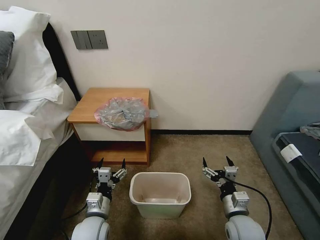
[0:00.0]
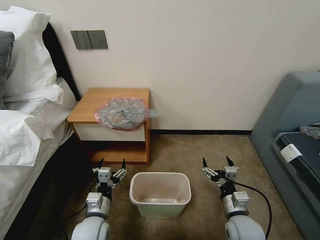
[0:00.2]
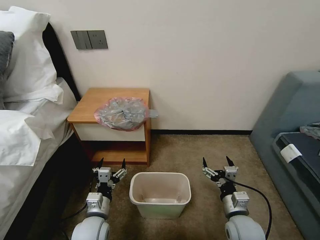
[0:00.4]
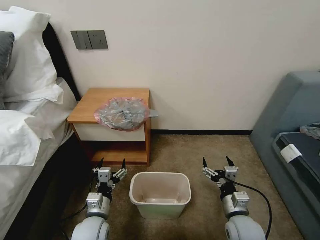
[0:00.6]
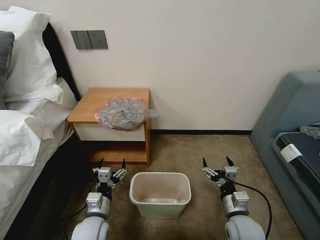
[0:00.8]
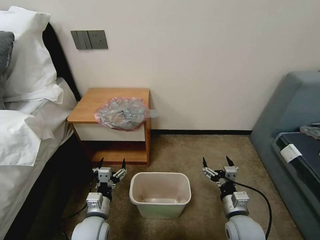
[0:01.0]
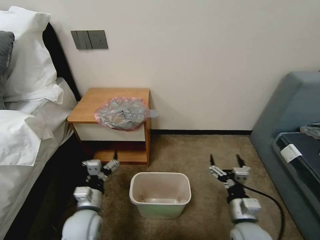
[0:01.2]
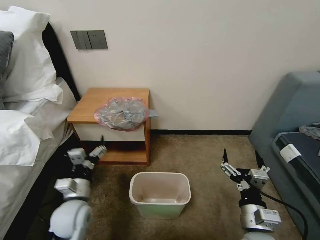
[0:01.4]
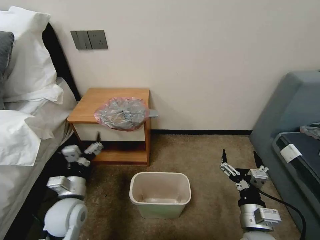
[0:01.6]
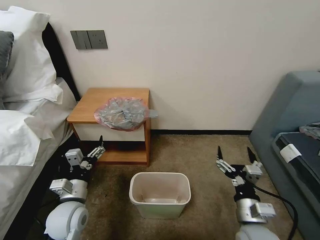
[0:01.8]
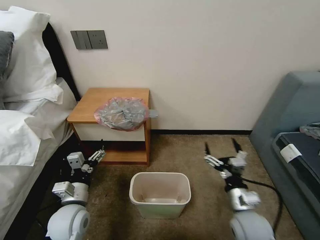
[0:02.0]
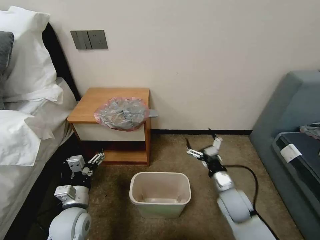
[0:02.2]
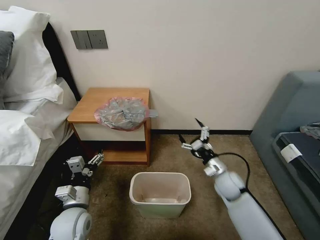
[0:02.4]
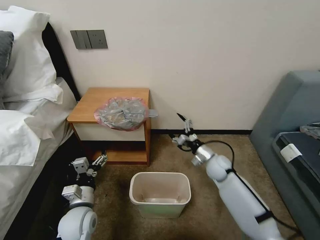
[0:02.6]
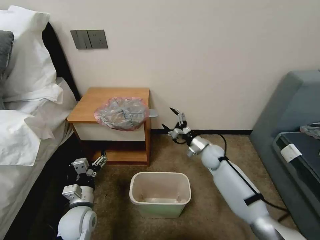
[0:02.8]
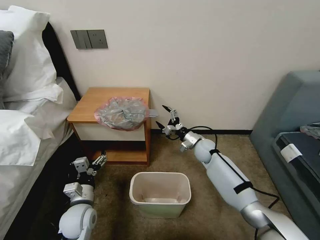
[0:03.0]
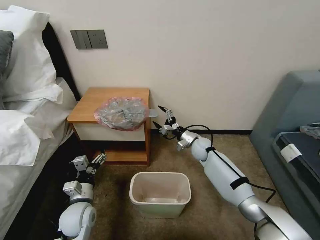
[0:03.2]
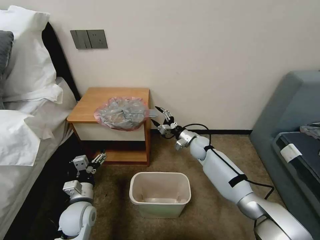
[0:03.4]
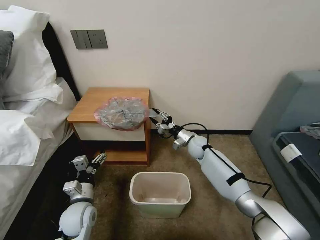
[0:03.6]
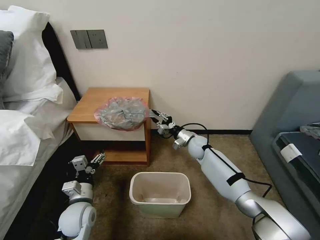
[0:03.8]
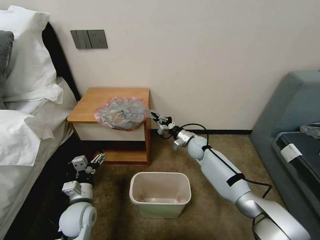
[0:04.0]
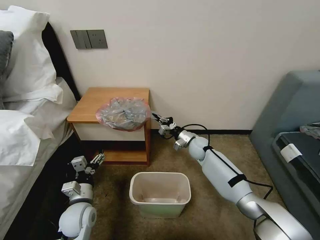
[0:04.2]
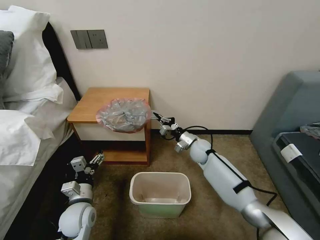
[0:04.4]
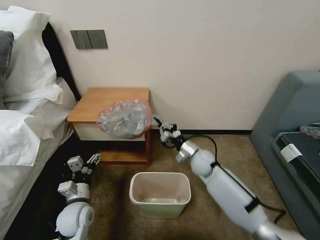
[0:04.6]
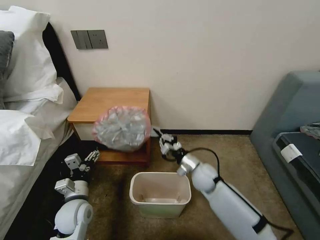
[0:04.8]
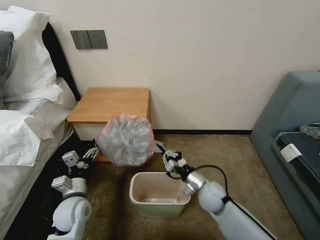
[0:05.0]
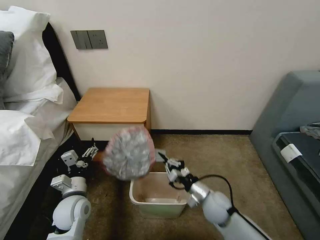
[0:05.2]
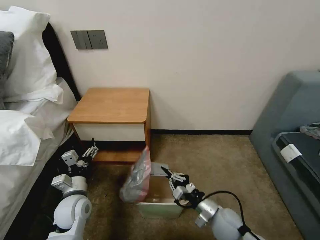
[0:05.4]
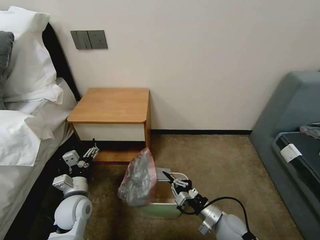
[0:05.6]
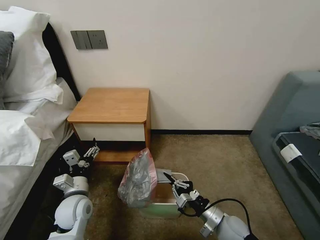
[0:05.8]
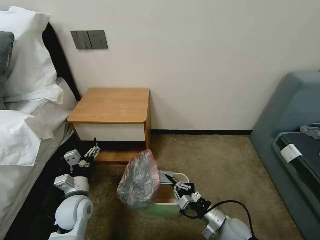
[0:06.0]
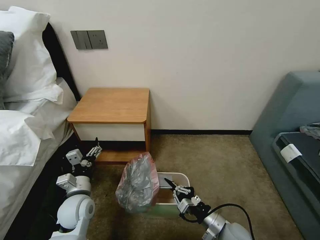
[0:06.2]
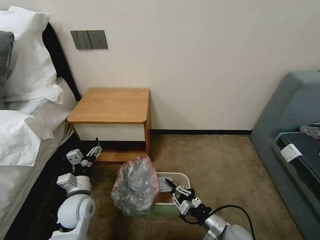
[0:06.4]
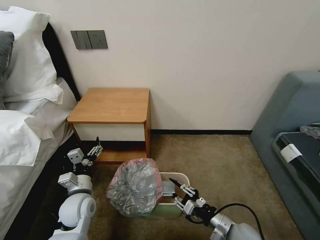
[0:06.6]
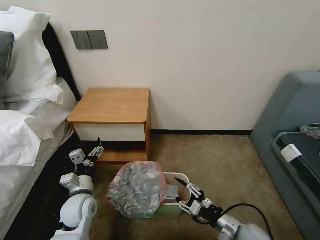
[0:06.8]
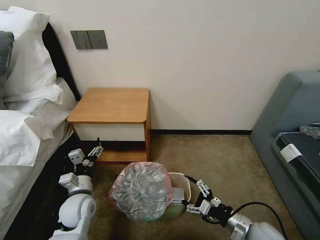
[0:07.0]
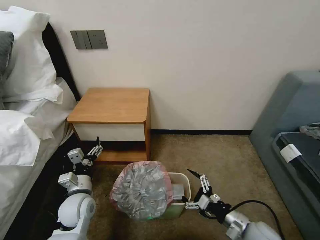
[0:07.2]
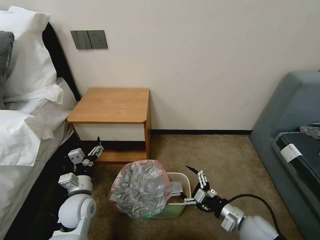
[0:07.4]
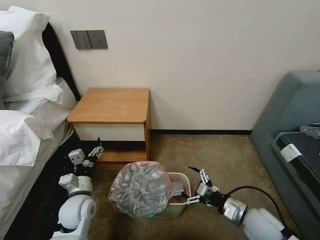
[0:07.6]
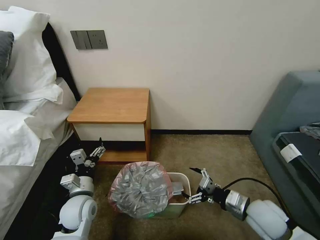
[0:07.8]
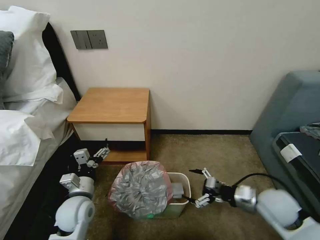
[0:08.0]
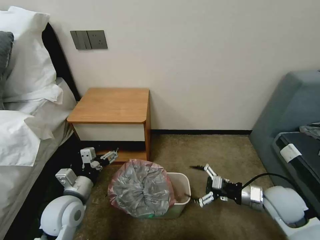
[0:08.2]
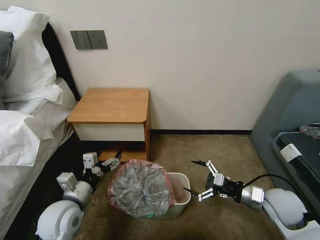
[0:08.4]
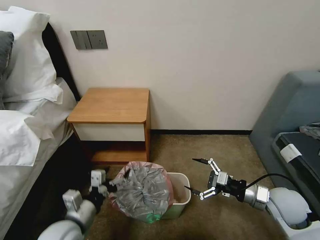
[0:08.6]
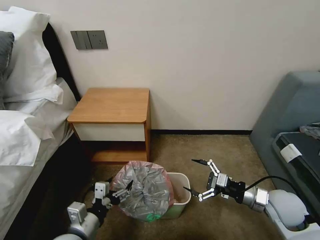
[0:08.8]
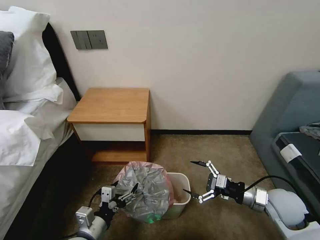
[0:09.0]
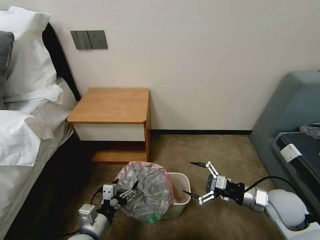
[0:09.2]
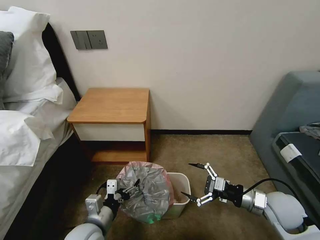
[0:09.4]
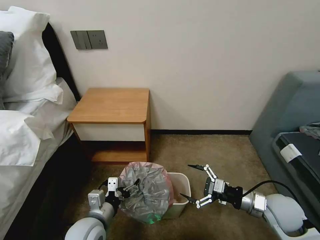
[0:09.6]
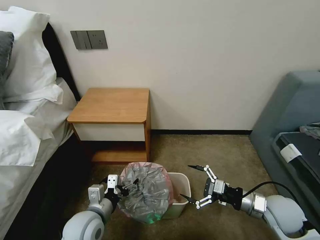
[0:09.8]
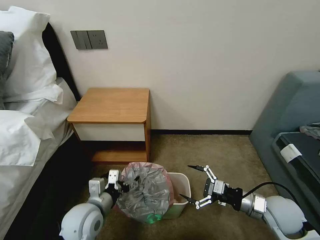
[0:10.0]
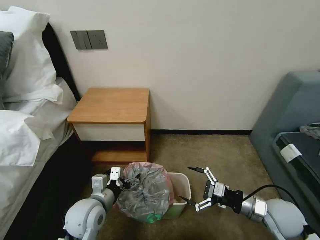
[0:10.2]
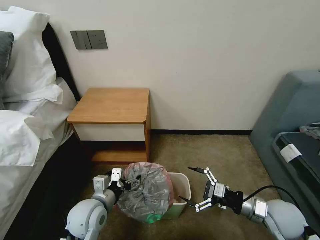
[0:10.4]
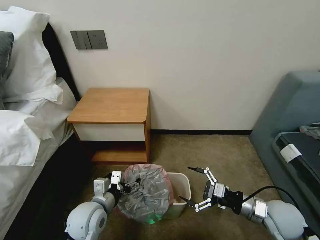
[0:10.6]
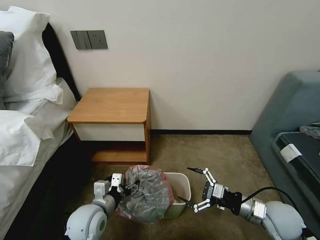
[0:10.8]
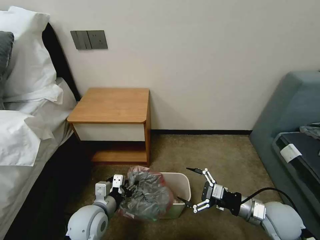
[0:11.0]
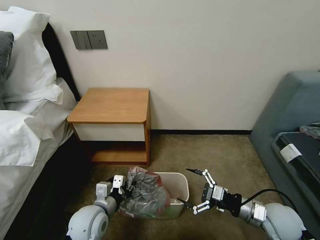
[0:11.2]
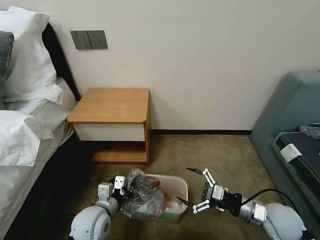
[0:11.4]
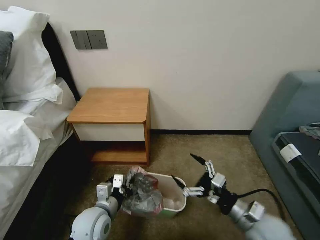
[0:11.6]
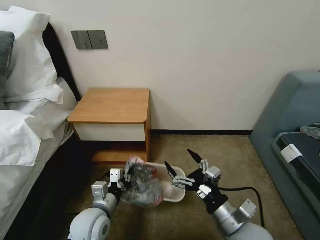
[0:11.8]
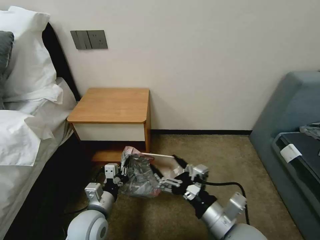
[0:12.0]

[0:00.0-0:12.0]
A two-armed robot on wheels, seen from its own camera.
Task of the whole recording: Pick up the garbage bag from the table and place it over the trash can.
0:01.6 to 0:03.0: The left gripper shifts some 5 cm downward; the right gripper goes about 35 cm forward.
0:03.0 to 0:04.4: The right gripper closes its fingers.
0:04.4 to 0:06.0: The right gripper shifts approximately 30 cm backward.
0:06.0 to 0:07.6: The right gripper travels upward and to the right by roughly 10 cm, and opens.
0:07.6 to 0:09.0: The left gripper is displaced backward by roughly 10 cm. Meanwhile the right gripper goes some 5 cm to the right.
0:09.0 to 0:10.4: The left gripper is displaced forward by approximately 10 cm.
0:10.4 to 0:12.0: The left gripper closes. Meanwhile the right gripper moves to the left, backward and upward, roughly 20 cm.

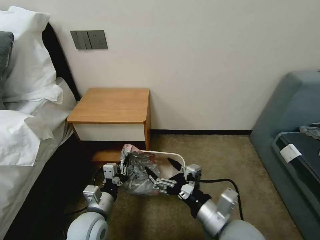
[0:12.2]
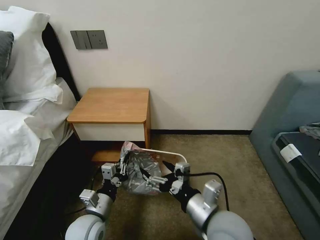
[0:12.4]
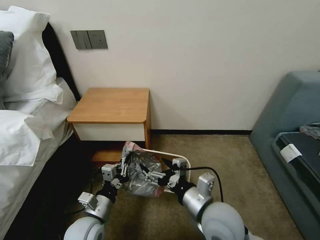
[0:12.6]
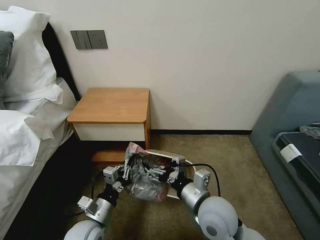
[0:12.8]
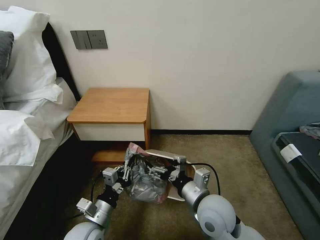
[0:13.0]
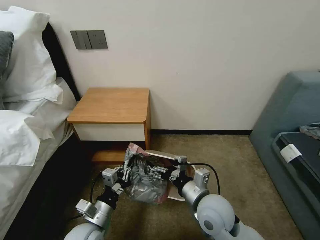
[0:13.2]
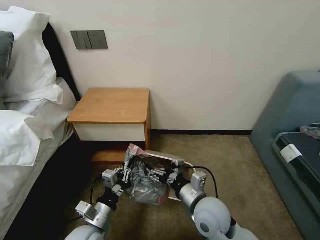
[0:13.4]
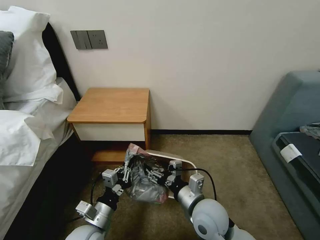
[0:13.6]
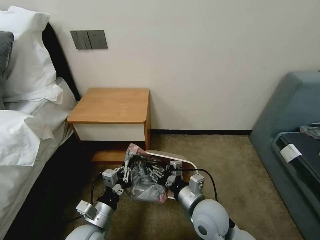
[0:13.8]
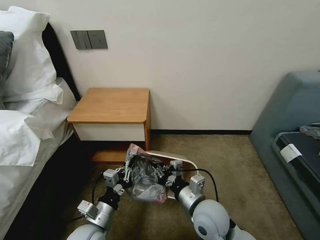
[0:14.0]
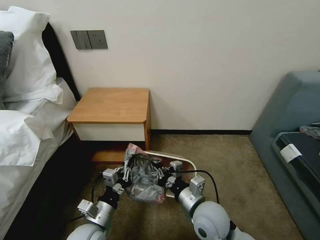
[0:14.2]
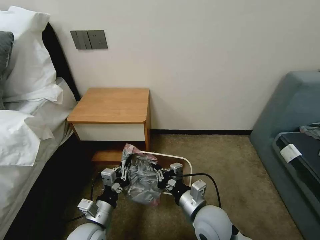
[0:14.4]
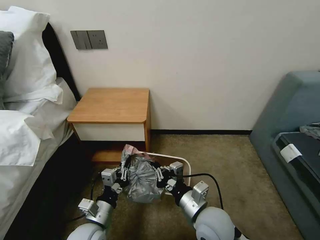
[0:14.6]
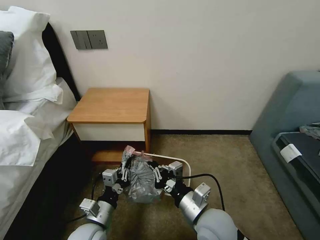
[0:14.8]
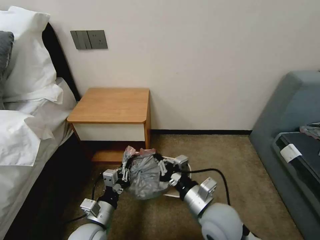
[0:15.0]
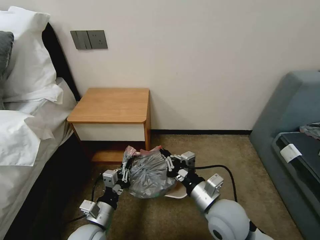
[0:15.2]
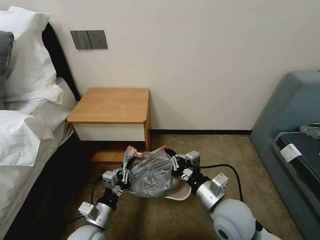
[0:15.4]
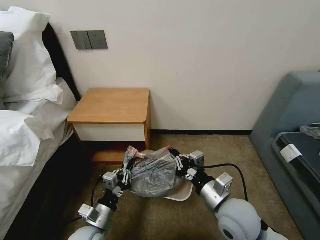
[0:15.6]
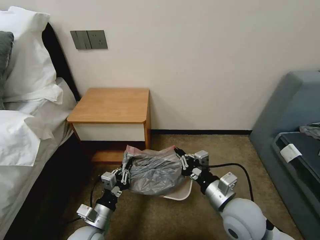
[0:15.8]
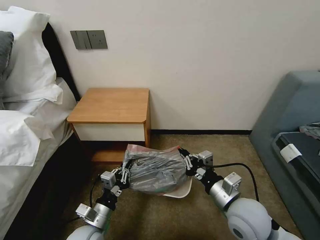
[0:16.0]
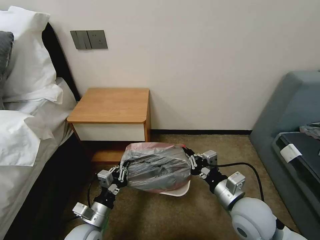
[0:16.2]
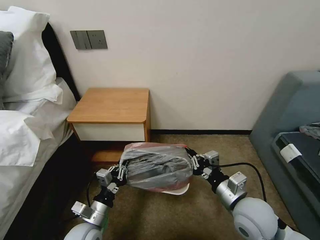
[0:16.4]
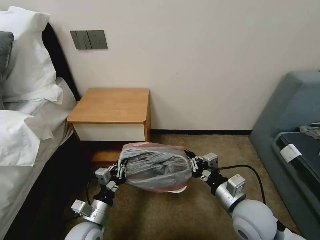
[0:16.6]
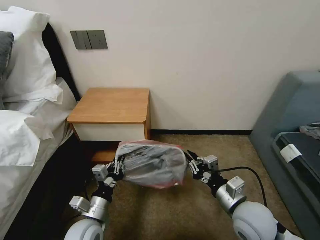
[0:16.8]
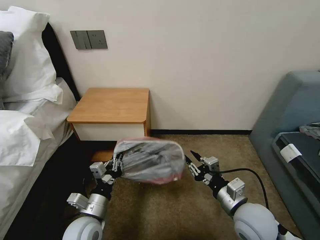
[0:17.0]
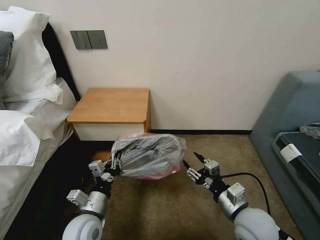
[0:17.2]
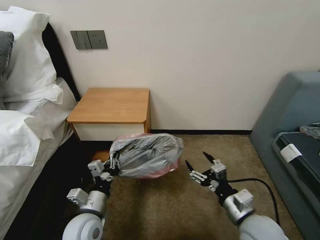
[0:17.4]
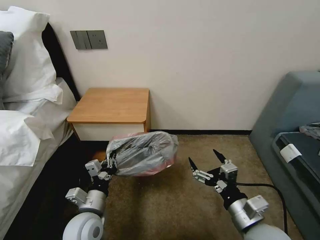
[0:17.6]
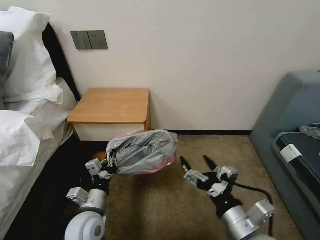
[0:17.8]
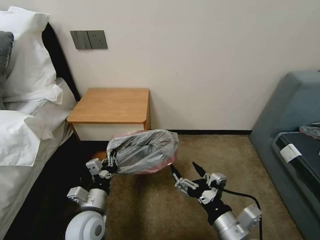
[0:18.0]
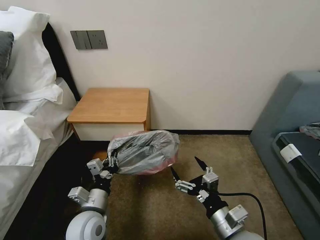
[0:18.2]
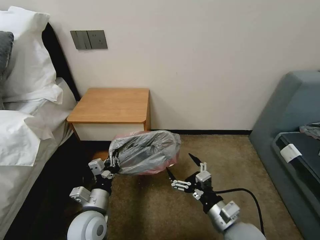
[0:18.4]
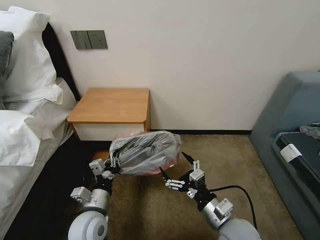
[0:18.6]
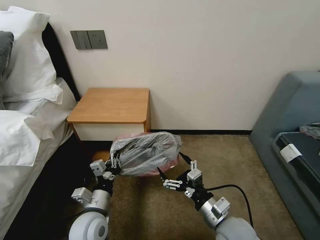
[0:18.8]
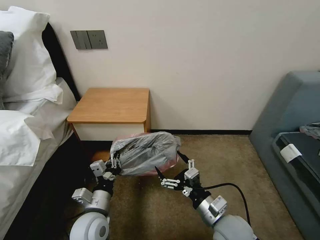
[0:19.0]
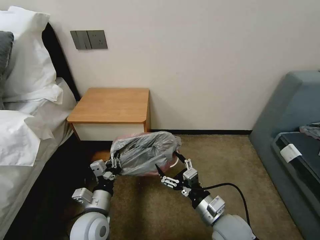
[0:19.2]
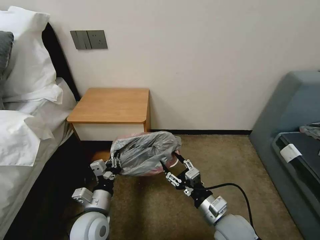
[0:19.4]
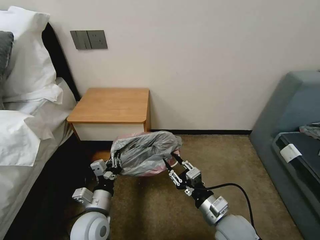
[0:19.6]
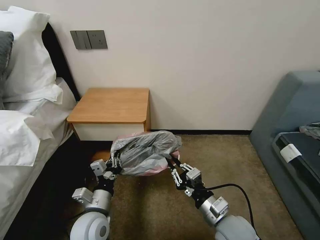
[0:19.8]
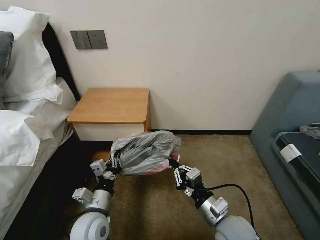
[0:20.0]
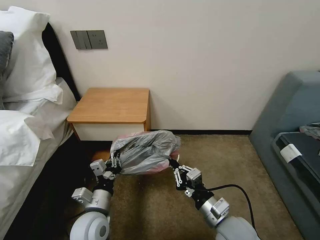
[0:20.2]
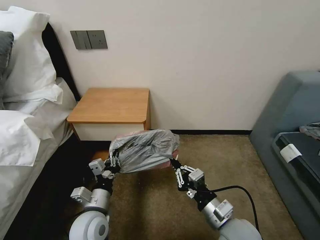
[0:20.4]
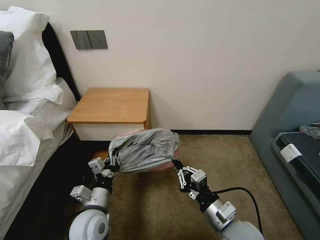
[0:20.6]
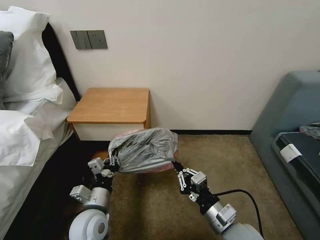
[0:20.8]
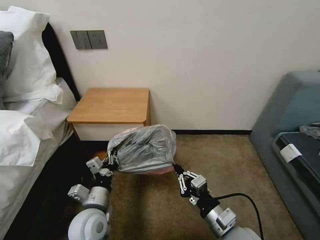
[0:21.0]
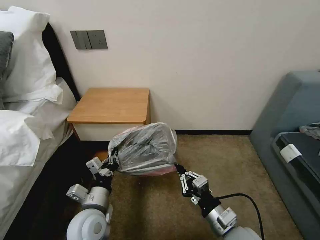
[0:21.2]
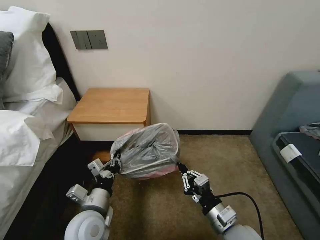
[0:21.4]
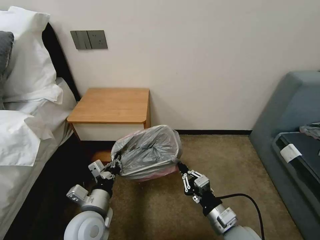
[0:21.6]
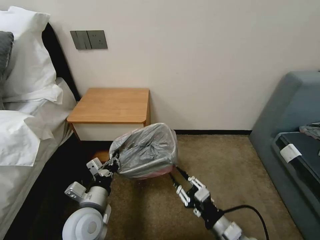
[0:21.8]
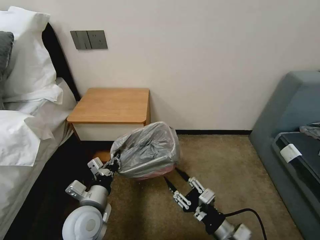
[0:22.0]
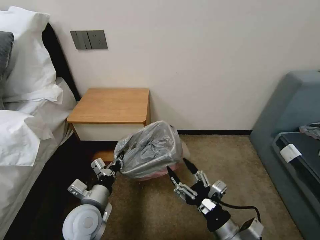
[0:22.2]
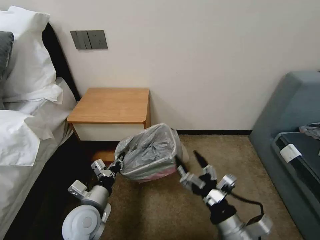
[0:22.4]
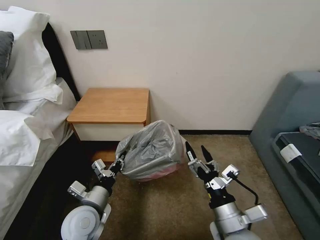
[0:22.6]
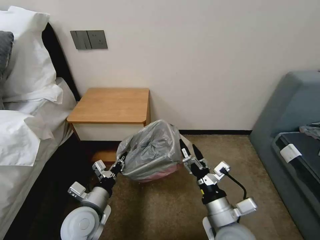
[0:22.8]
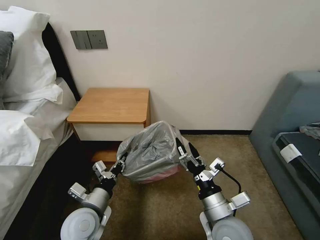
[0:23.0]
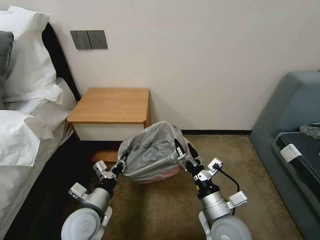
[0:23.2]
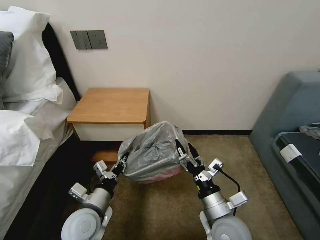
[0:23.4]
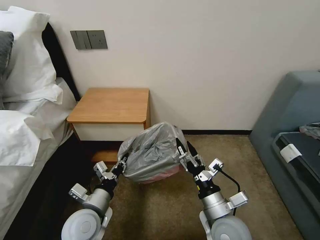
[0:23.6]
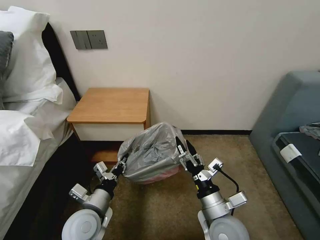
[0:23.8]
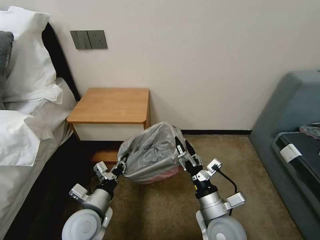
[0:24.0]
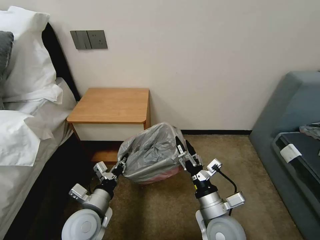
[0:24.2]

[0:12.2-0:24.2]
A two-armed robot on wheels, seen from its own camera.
Task of the whole recording: Pick up the garbage bag from the table and place it over the trash can.
0:12.2 to 0:13.8: The right gripper travels forward and downward by approximately 10 cm, and closes its fingers.
0:13.8 to 0:15.2: The right gripper closes.
0:15.2 to 0:16.6: The right gripper heads to the right, covering some 5 cm.
0:16.6 to 0:18.2: The right gripper goes roughly 5 cm backward, and opens.
0:18.2 to 0:19.8: The right gripper ends up some 5 cm from where it was, and closes its fingers.
0:19.8 to 0:21.2: The grippers stay close to where they were, moving slightly.
0:21.2 to 0:22.6: The right gripper opens.
0:22.6 to 0:24.2: The right gripper ends up approximately 5 cm from where it was.
